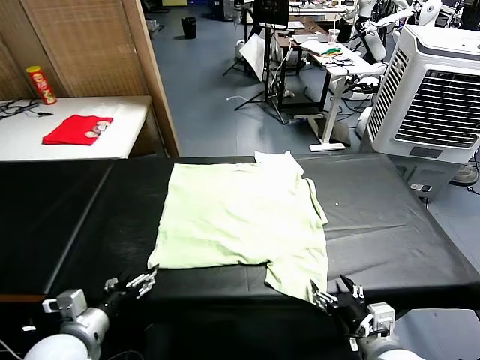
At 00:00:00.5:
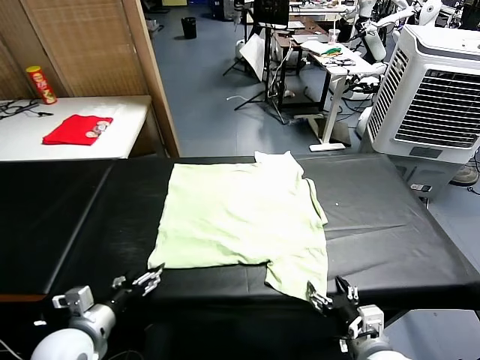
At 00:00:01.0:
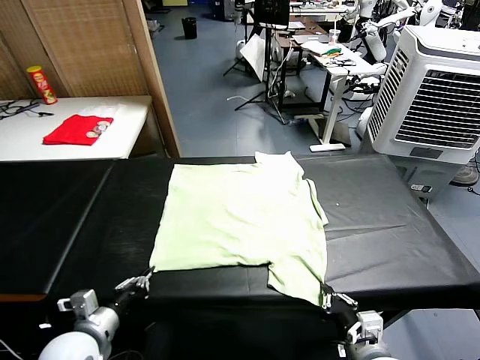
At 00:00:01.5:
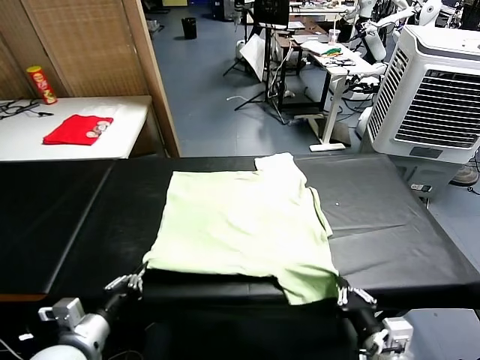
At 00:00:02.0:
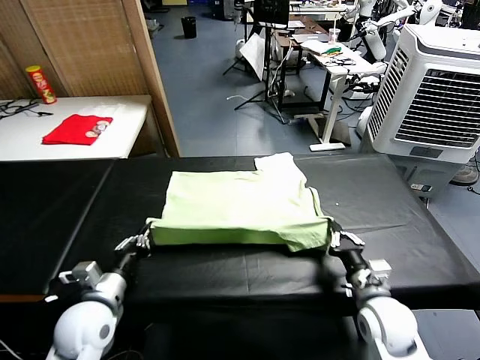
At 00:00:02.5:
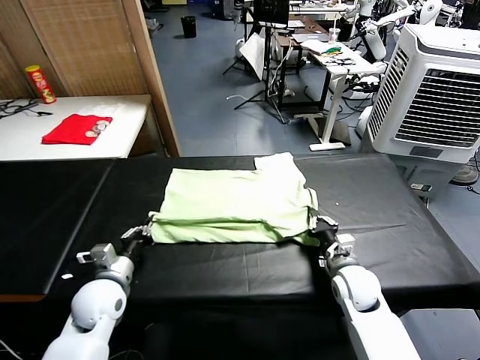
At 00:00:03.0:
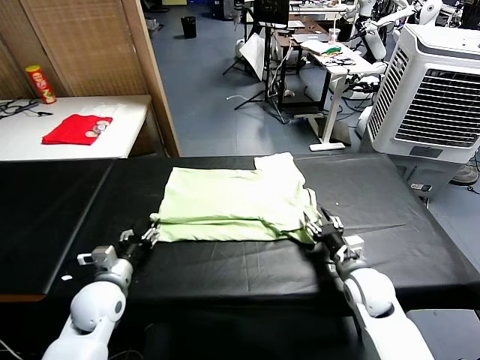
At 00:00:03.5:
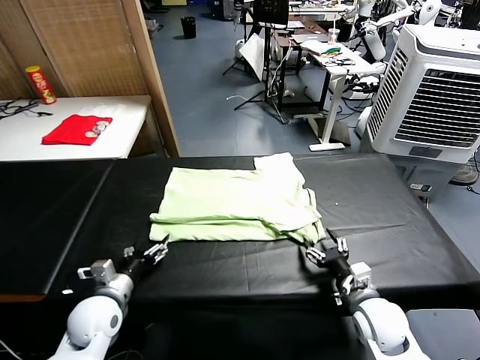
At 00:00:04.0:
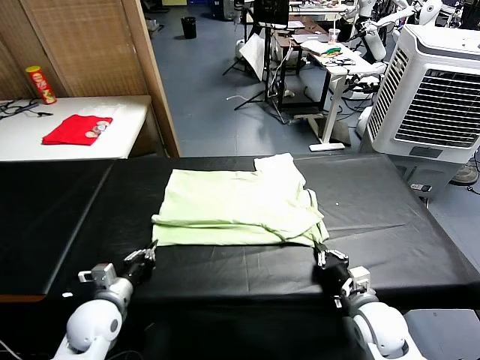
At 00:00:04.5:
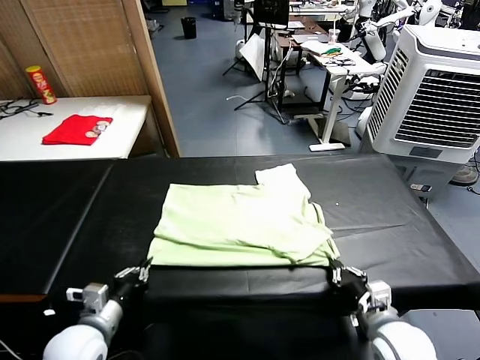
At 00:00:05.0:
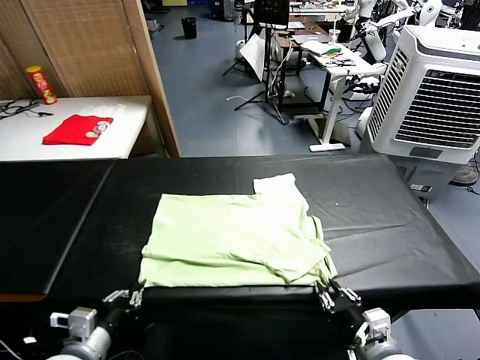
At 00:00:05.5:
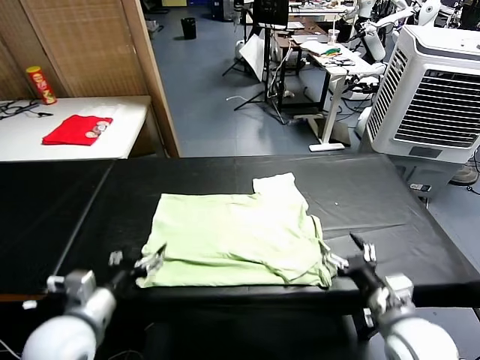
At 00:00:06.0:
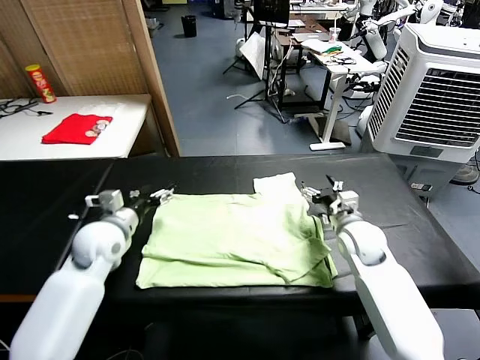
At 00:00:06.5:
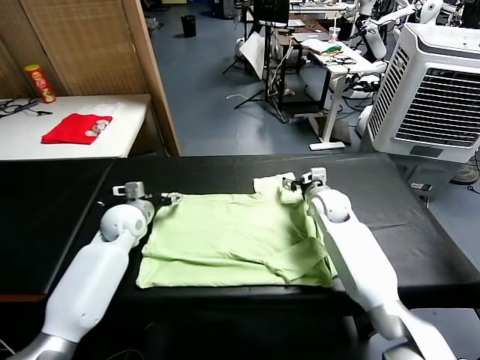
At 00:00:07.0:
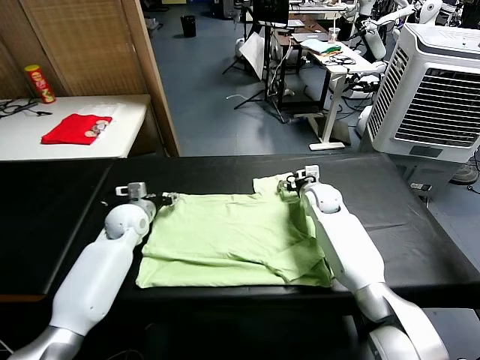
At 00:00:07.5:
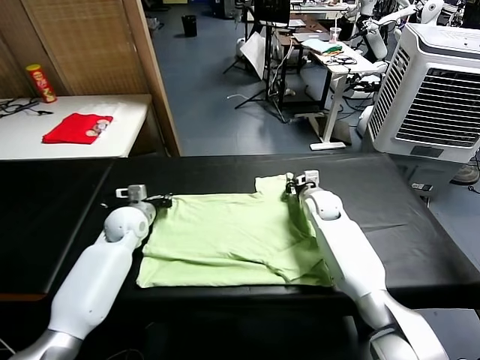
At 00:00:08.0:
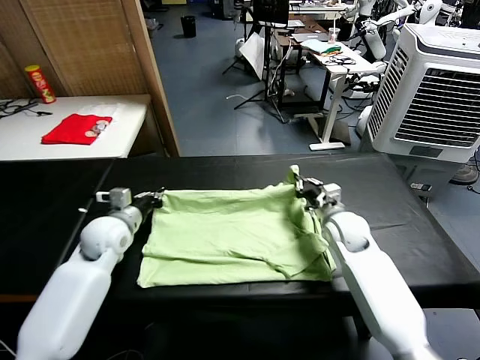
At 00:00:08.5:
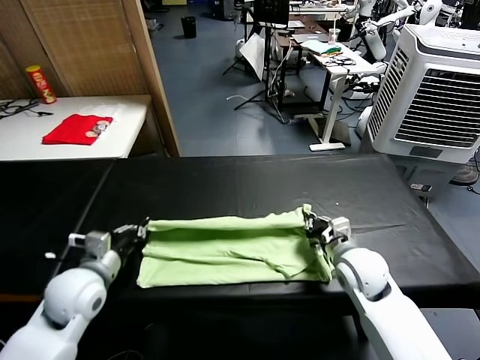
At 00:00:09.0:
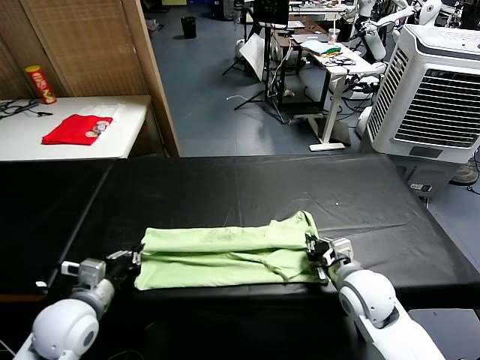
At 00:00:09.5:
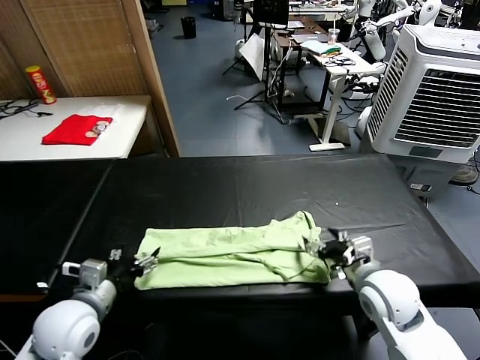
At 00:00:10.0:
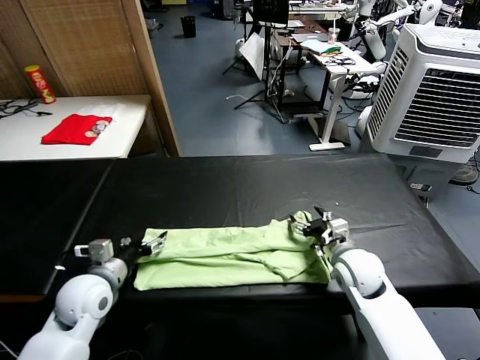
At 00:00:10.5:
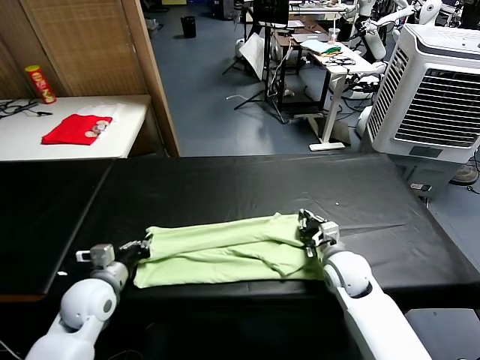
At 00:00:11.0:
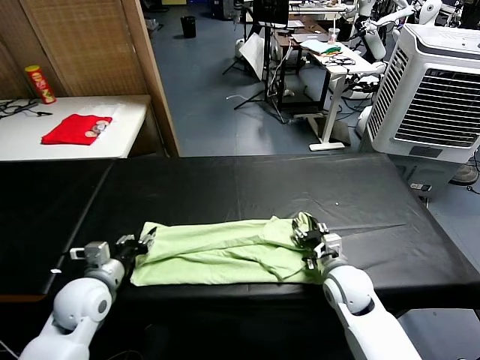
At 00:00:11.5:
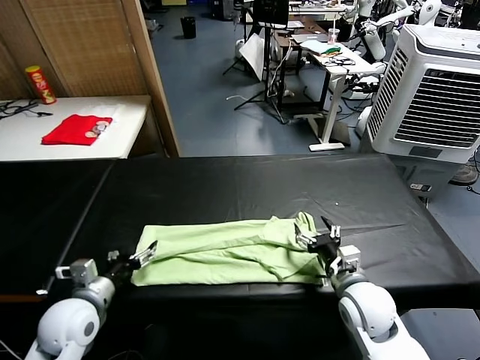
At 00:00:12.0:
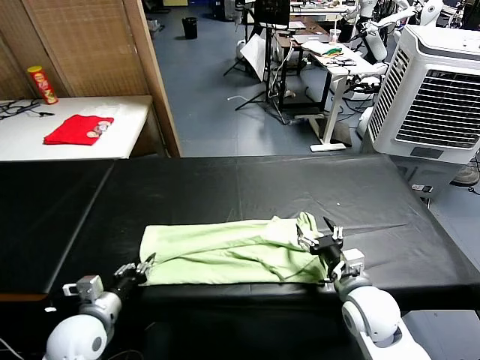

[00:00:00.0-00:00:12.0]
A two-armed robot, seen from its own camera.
Task of the whole recording: fold and organize the clothes.
Step, 00:00:00.0 to 00:00:01.0: use both grippers simultaneously to clamp the lower edge of the clothing fabric.
Step, 00:00:01.5 to 00:00:03.0: use both grippers to drag the lower edge of the fabric forward and fold it over the upper edge.
Step, 00:00:03.5 to 00:00:05.0: Drag the clothes downward with both gripper.
Step, 00:00:05.5 to 00:00:07.0: use both grippers simultaneously to clamp the upper edge of the clothing fabric.
Step, 00:00:07.5 to 00:00:09.0: use both grippers to drag the upper edge of the fabric backward and fold it over the lower edge.
00:00:02.0 to 00:00:04.0: The right gripper is displaced backward by some 5 cm, and opens, then closes once more. Meanwhile the left gripper travels downward by roughly 5 cm, and opens and closes again.
00:00:04.0 to 00:00:06.0: The right gripper heads forward, covering approximately 25 cm, and opens up; the left gripper travels forward and upward by roughly 20 cm, and opens its fingers.
00:00:06.0 to 00:00:08.0: The right gripper travels backward by approximately 5 cm, and closes, while the left gripper goes forward and returns, some 10 cm each way, and closes.
00:00:08.0 to 00:00:10.0: The right gripper reaches roughly 10 cm backward, then returns, and opens. The left gripper moves backward, approximately 10 cm, and opens up.
00:00:10.0 to 00:00:12.0: The grippers both shift backward by roughly 10 cm. The left gripper closes up, while the right gripper closes, then opens again.

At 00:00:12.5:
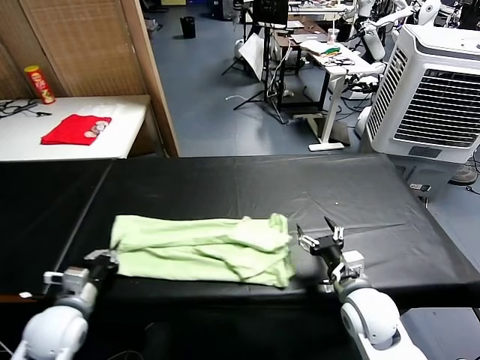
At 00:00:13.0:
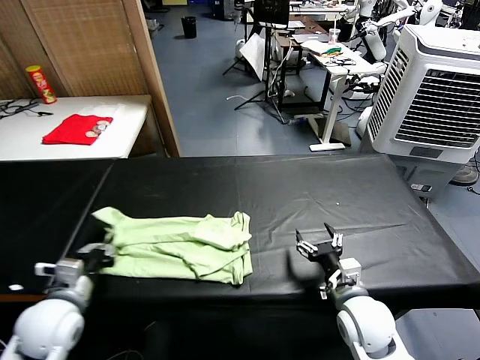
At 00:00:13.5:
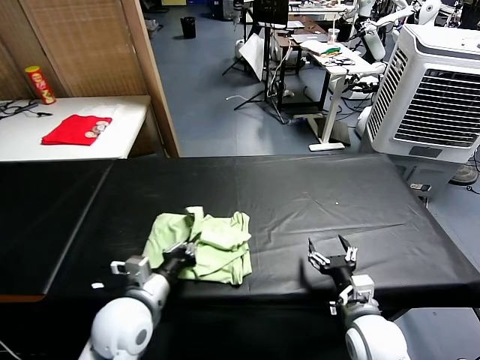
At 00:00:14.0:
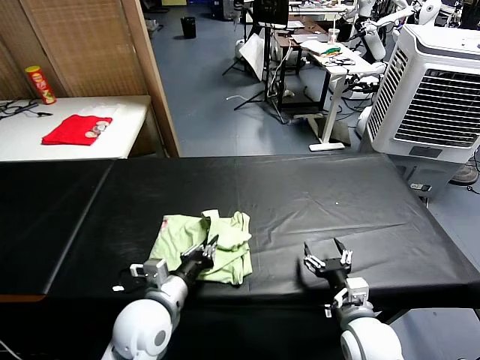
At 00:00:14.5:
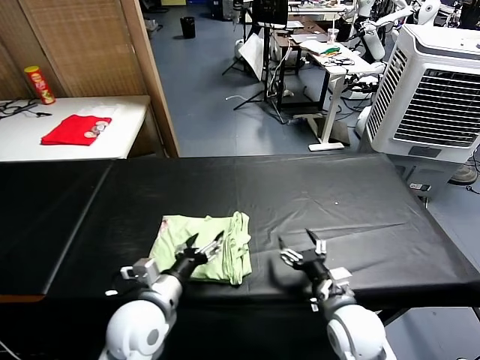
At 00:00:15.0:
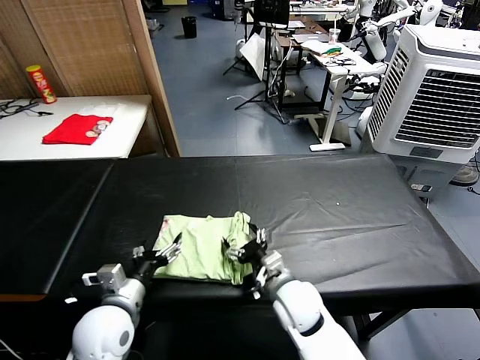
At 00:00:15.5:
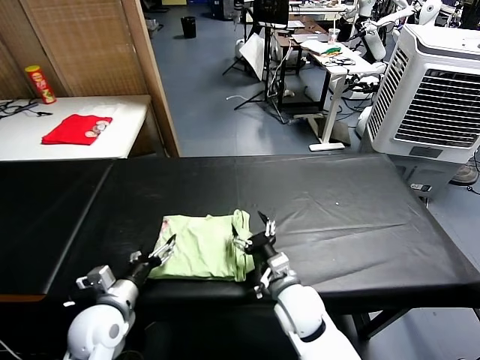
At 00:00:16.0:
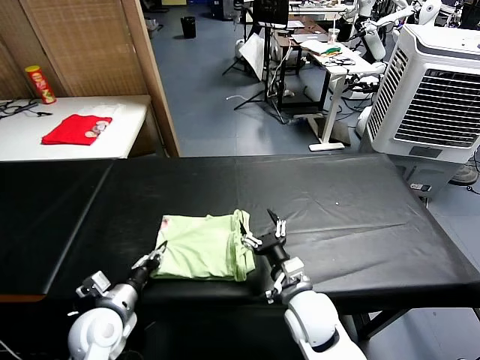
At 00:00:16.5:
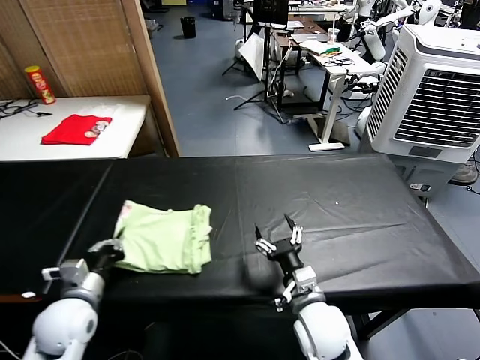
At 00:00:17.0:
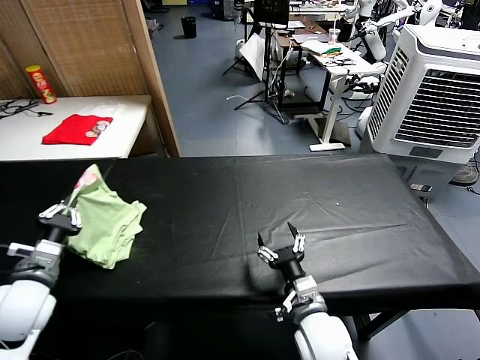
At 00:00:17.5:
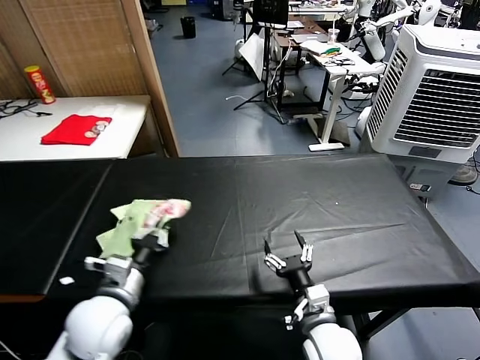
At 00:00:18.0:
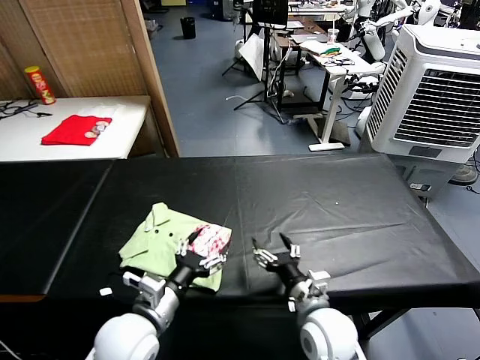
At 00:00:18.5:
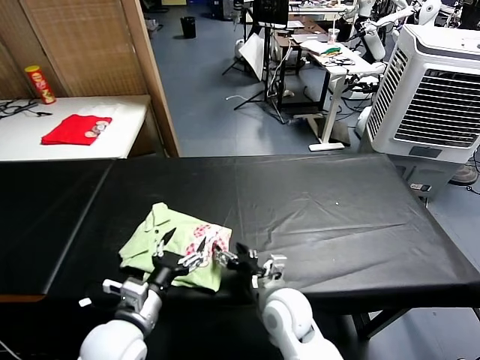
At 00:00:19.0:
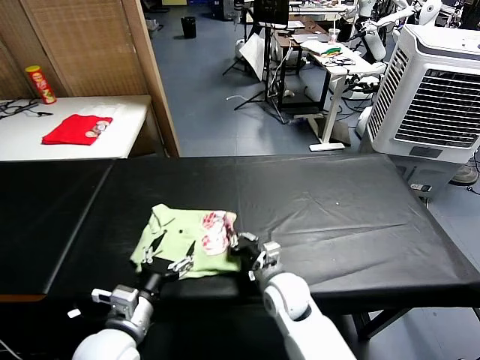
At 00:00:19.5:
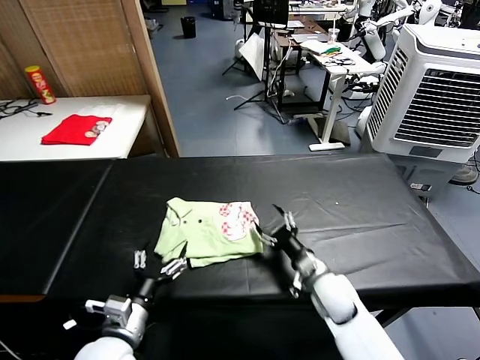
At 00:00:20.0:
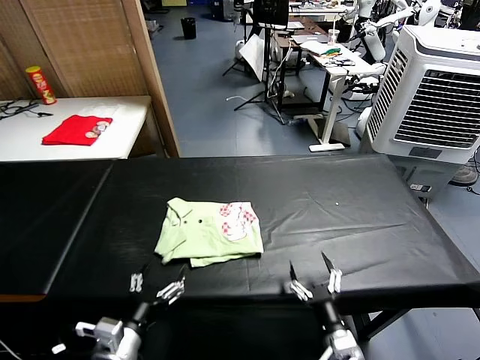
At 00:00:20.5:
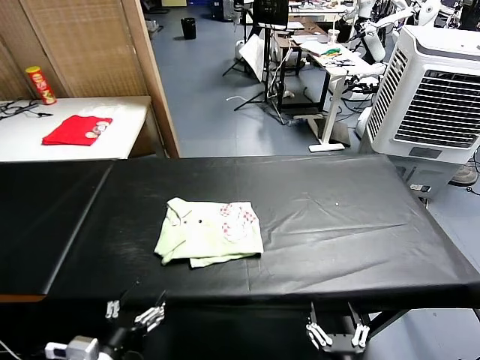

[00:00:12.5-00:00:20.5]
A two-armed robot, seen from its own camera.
Task of the whole recording: fold and organize the clothes.
Step, 00:00:12.5 to 00:00:14.0: use the left gripper to drag the left edge of the fabric to the left and folds it over the right edge.
Step, 00:00:14.5 to 00:00:17.5: Flip the folded clothes over with left gripper.
Step, 00:00:18.0 to 00:00:19.0: Drag the clothes to the center of the table.
00:00:12.5 to 00:00:14.5: The left gripper travels to the right by approximately 20 cm, and opens.
00:00:14.5 to 00:00:16.5: The left gripper is displaced to the left by some 15 cm, and closes its fingers. The right gripper shifts about 5 cm to the left.
00:00:16.5 to 00:00:18.5: The right gripper travels to the left by roughly 5 cm, while the left gripper goes roughly 10 cm to the right, and opens up.
00:00:18.5 to 00:00:20.5: The left gripper is displaced backward by roughly 10 cm. Meanwhile the right gripper heads backward and to the right, covering about 25 cm, and closes, then reopens.
